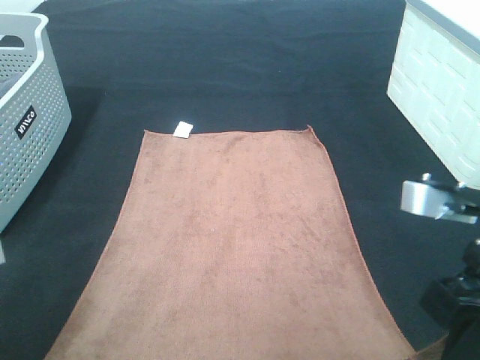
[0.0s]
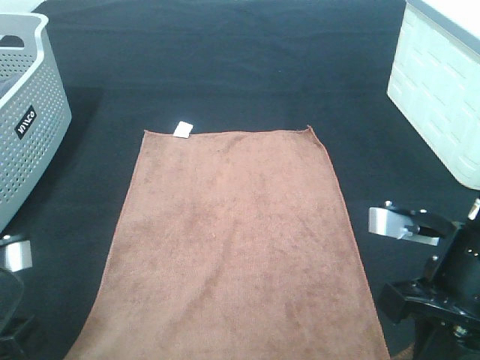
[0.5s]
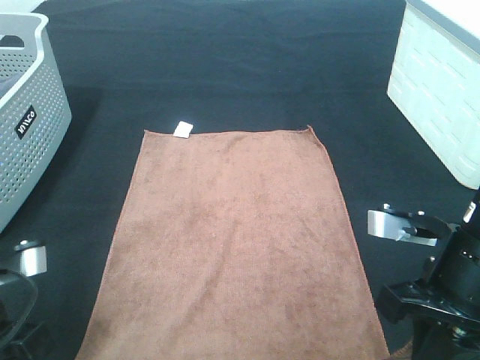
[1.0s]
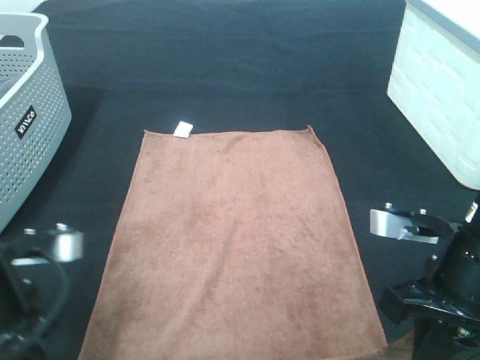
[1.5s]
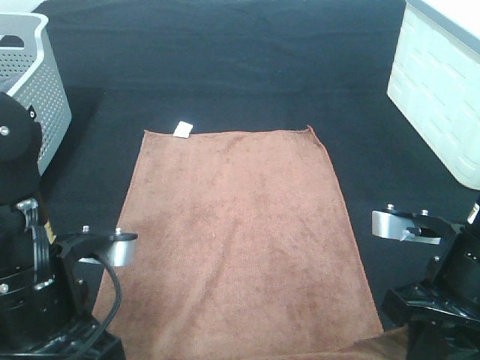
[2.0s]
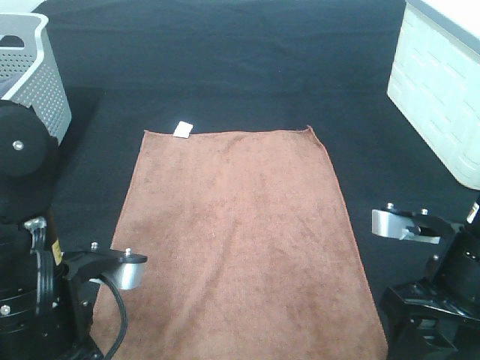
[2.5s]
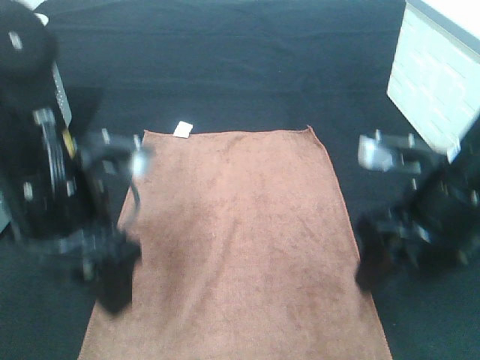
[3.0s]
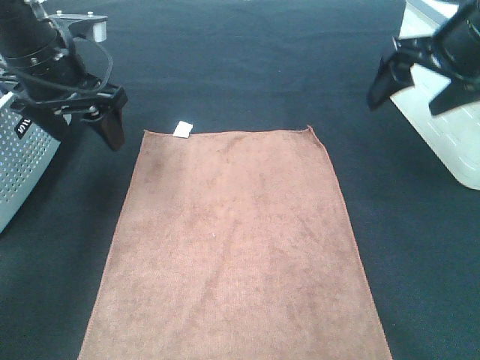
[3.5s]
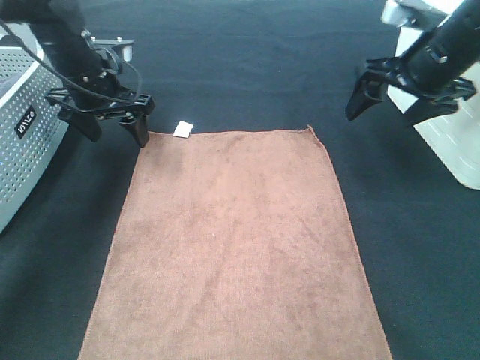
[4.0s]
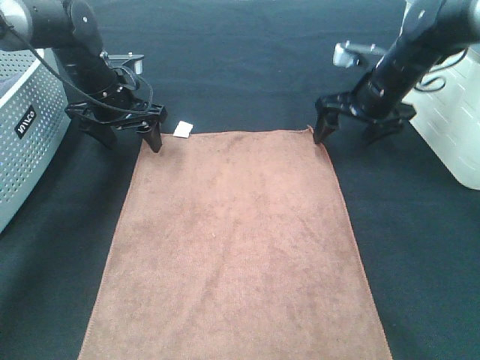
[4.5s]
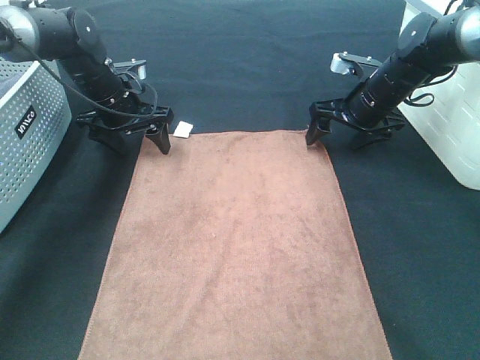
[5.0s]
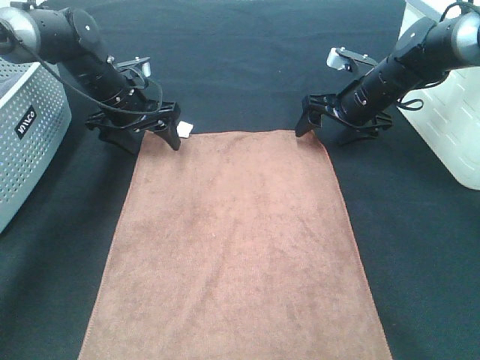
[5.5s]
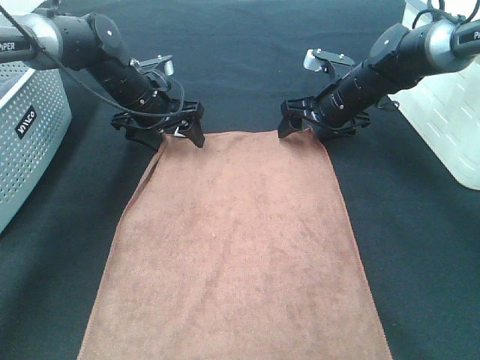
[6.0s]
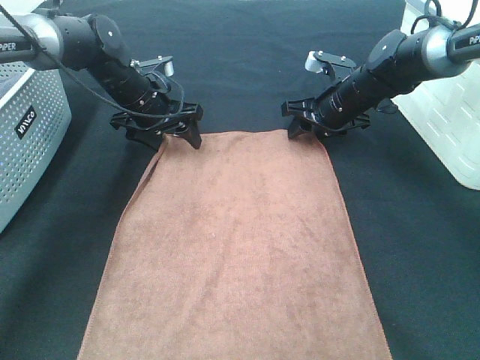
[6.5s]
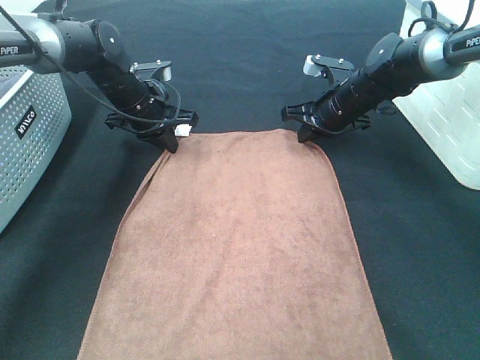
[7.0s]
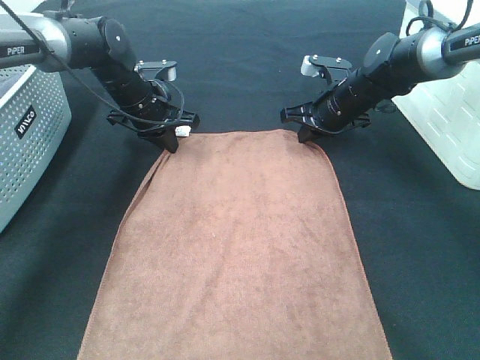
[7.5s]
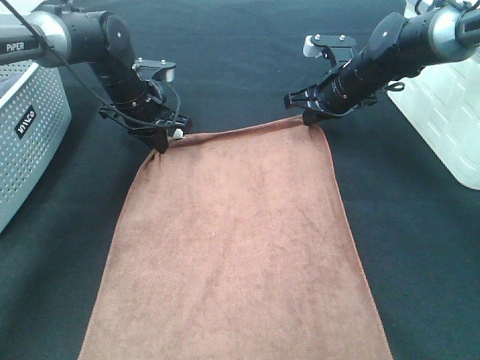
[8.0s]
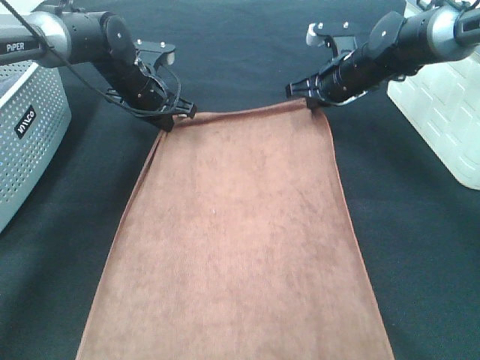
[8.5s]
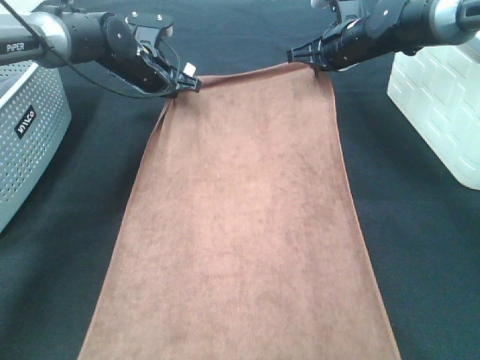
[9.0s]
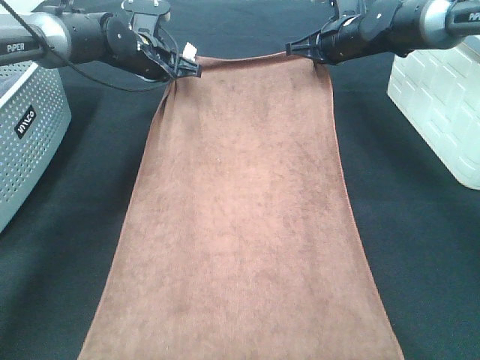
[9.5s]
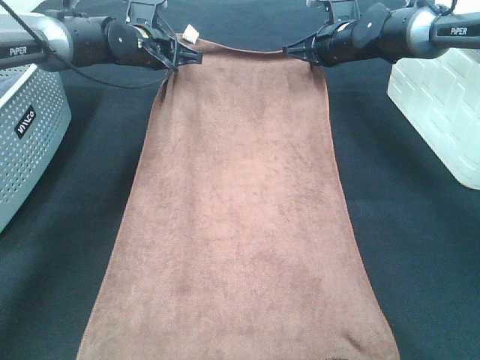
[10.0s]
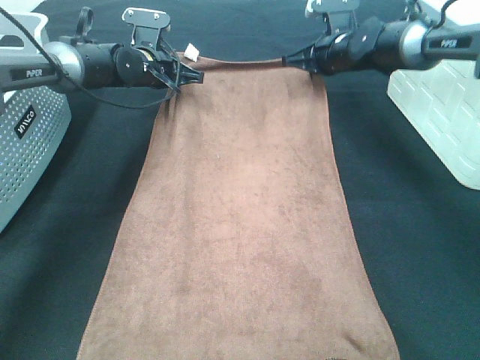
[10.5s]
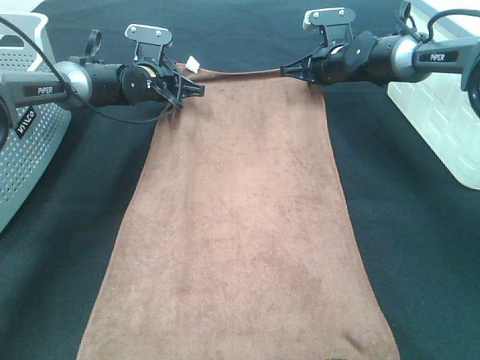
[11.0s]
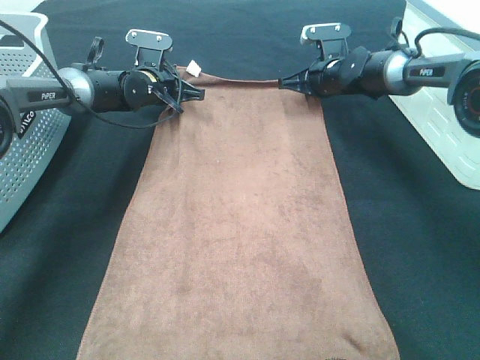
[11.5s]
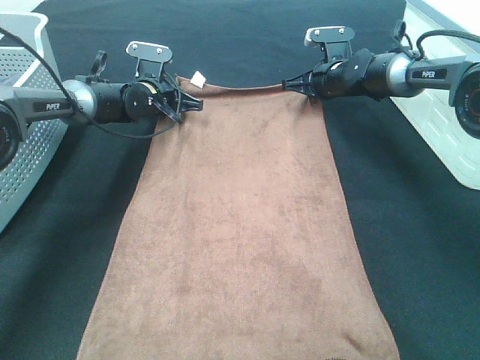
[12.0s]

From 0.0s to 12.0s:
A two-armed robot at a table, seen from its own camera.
Task of the whole recording: Remove the towel and place it.
Step, from 0.0s to 6.5s: Left hand:adjust the brown towel.
Step, from 0.0s to 6.5s: Right hand:adjust the brown towel.
From 0.0s to 2.0s: The left gripper travels to the right and forward by roughly 10 cm. Meanwhile the right gripper is displaced downward by roughly 5 cm, and opens up.
From 2.0s to 4.0s: Both grippers travel together forward, about 25 cm. The left gripper opens its fingers. The right gripper opens.
From 4.0s to 6.0s: The left gripper moves downward, some 5 cm, while the right gripper heads downward, forward and to the left, covering approximately 15 cm.
From 6.0s to 8.0s: The right gripper closes up. Meanwhile the left gripper closes.
From 8.0s to 10.0s: Both grippers move forward, about 5 cm.
From 10.0s to 12.0s: Both grippers move downward, about 10 cm.

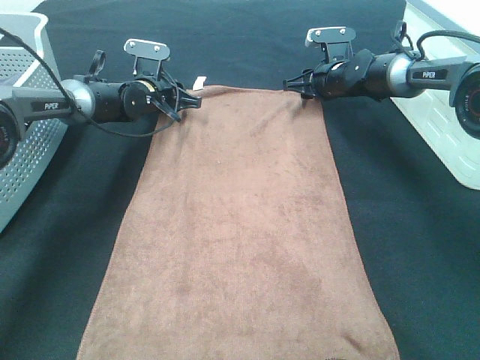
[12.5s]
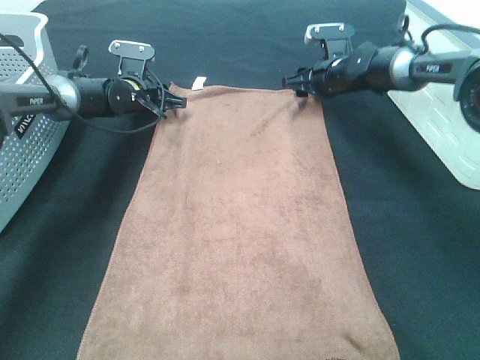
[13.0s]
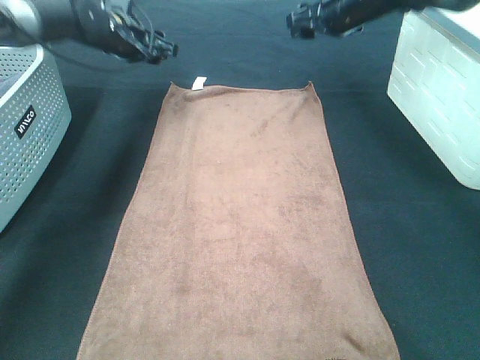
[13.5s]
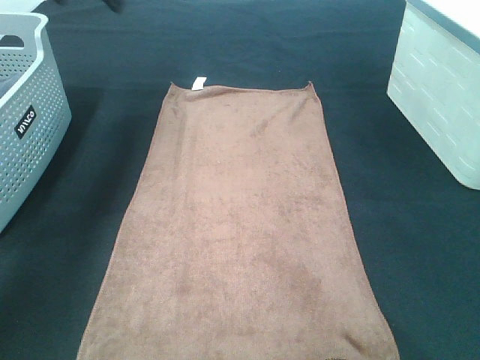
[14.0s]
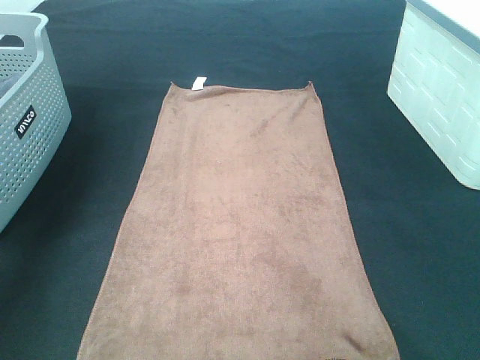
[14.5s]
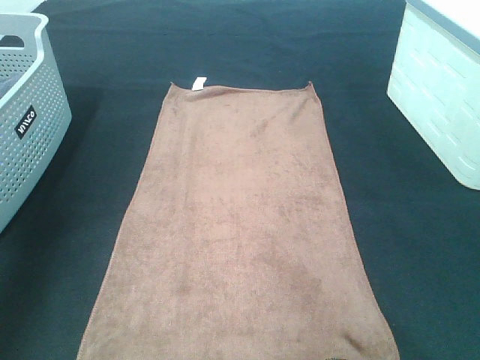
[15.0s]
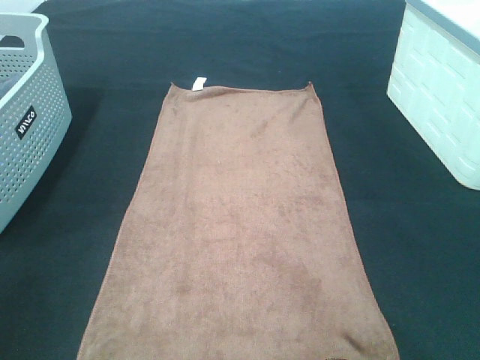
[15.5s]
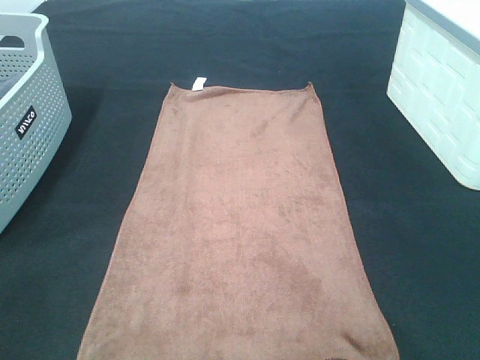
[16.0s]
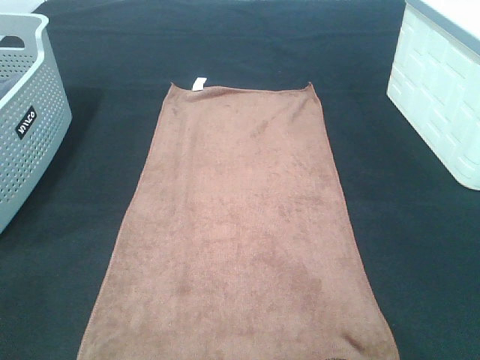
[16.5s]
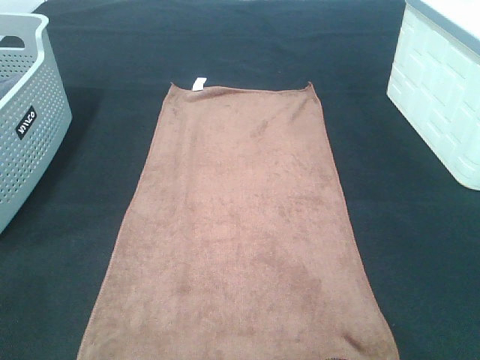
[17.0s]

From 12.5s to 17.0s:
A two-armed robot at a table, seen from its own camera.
Task of the whole recording: Remove the towel and place it.
From 12.5s to 14.5s: The left gripper travels upward, backward and to the left by roughly 40 cm, and opens its fingers. Meanwhile the right gripper heads upward and backward, covering approximately 40 cm.
From 14.5s to 17.0s: The two grippers go about 40 cm backward.

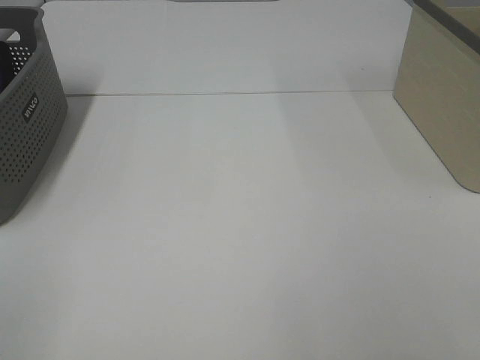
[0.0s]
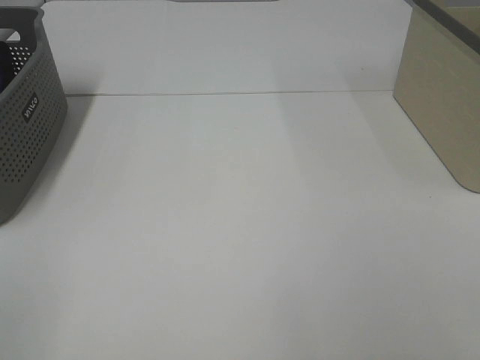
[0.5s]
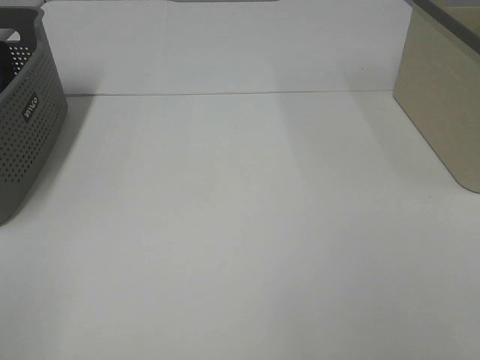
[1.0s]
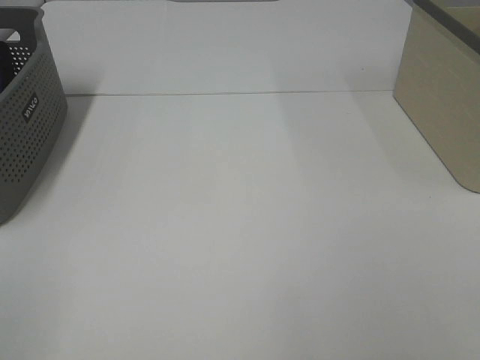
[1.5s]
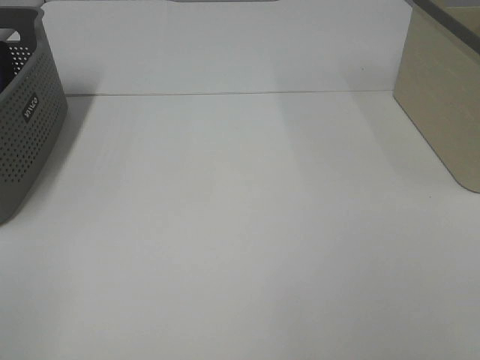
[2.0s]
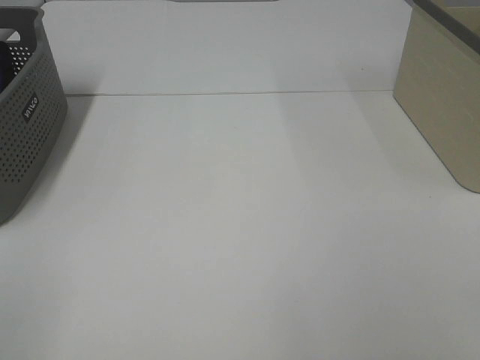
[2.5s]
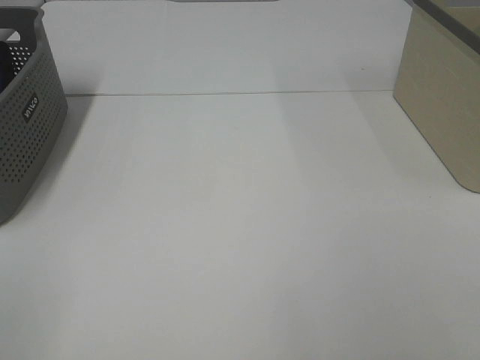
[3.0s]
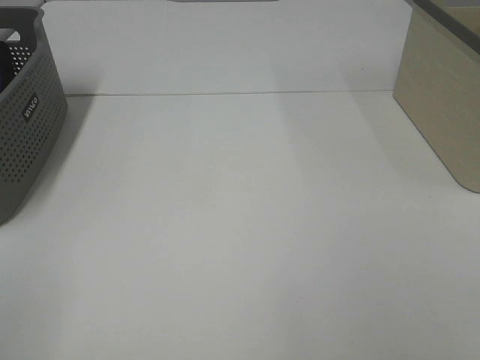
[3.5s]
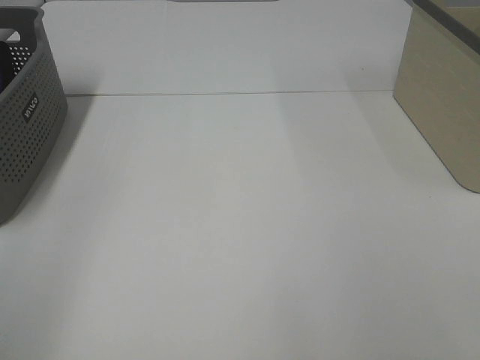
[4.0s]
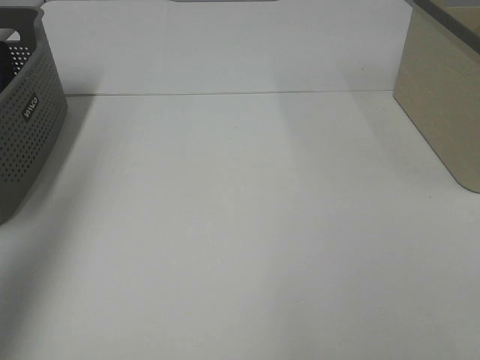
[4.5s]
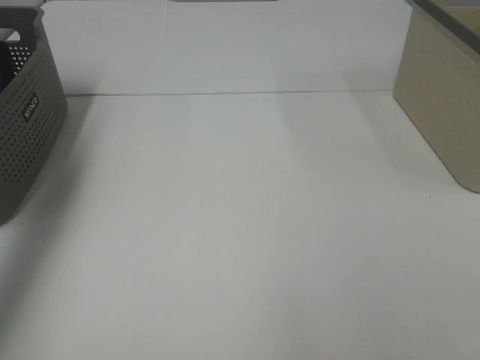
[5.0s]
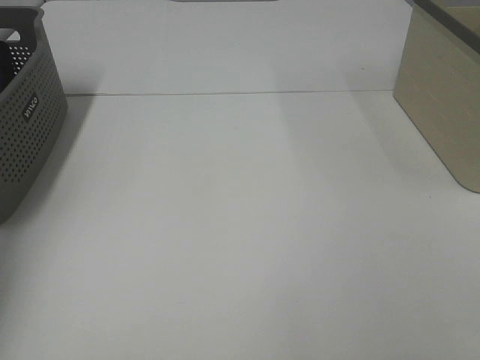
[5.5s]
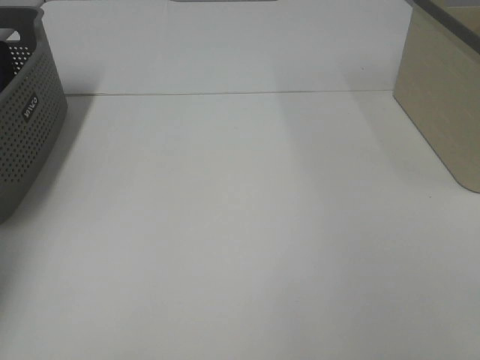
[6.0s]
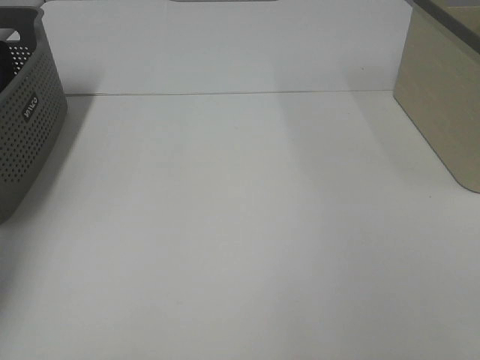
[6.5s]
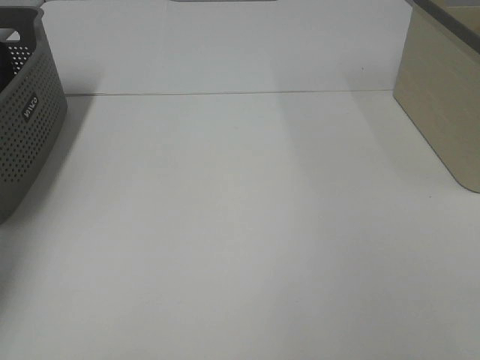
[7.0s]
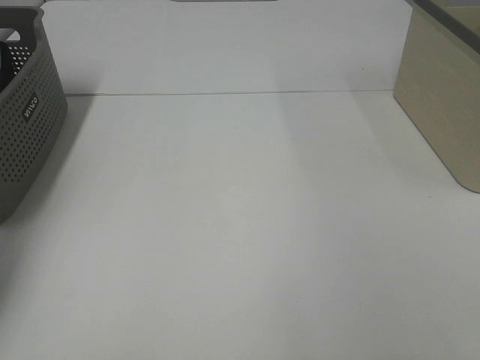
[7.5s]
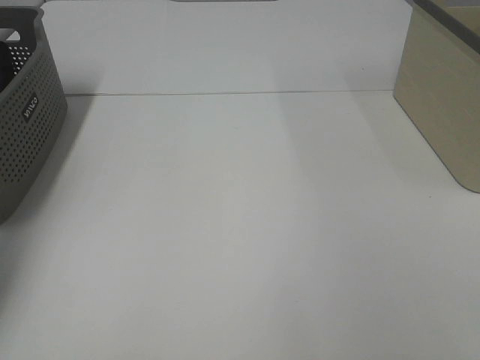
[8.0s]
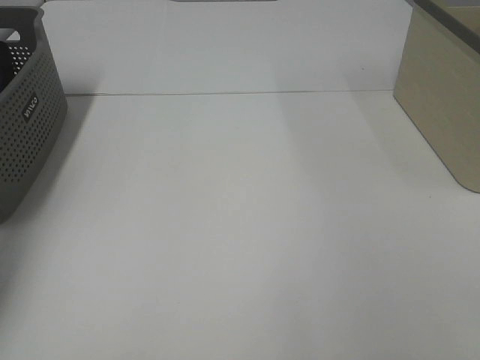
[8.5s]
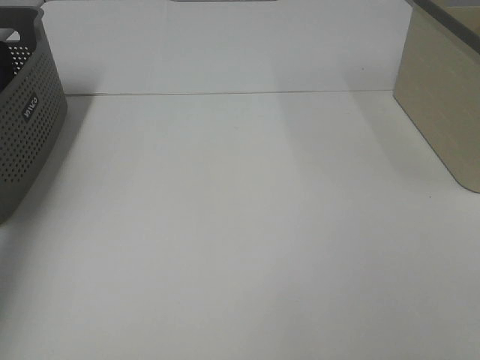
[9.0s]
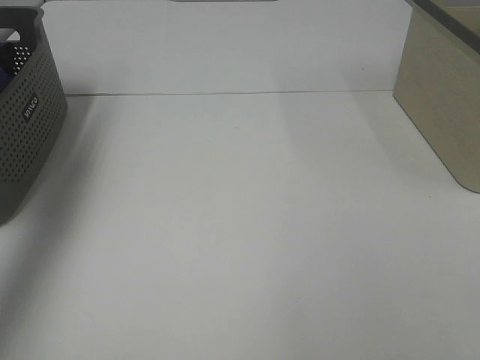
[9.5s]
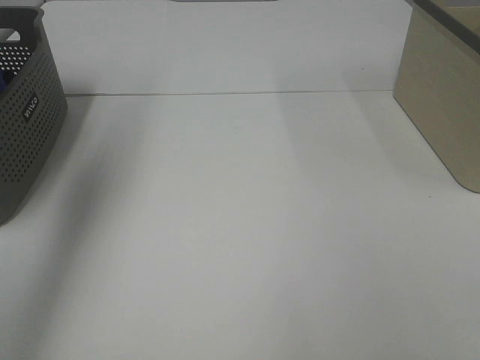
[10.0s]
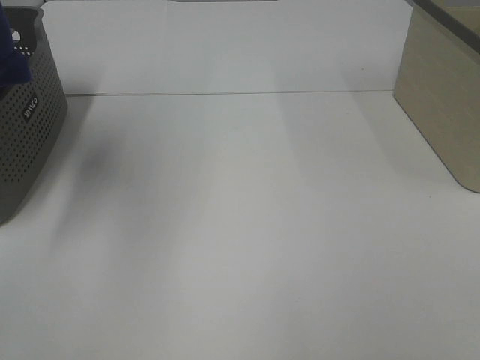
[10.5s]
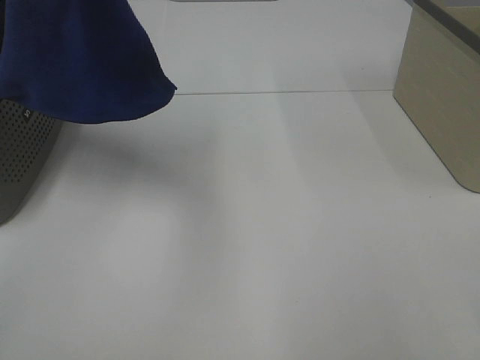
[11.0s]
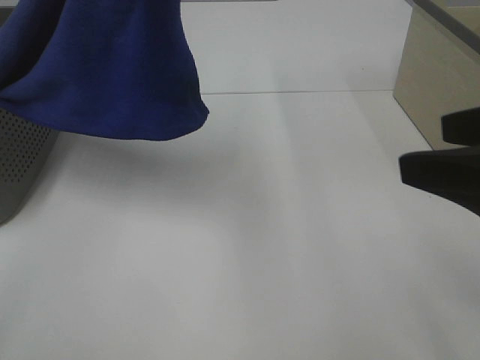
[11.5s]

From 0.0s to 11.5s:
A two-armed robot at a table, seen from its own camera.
Task of the whole recording: Remove the towel and place it.
From 0.0s to 2.0s: The two grippers keep their place.
From 4.0s to 6.0s: The left gripper shifts roughly 40 cm forward.
From 7.5s to 9.5s: The left gripper heads upward and backward, covering some 25 cm.
From 9.5s to 11.5s: The left gripper goes approximately 30 cm to the right and backward; the right gripper heads forward, covering roughly 15 cm.
